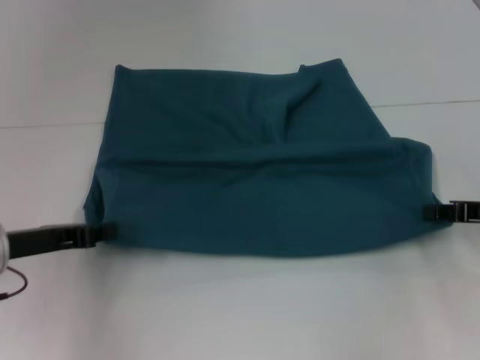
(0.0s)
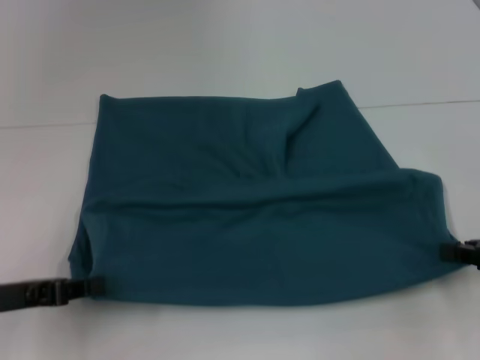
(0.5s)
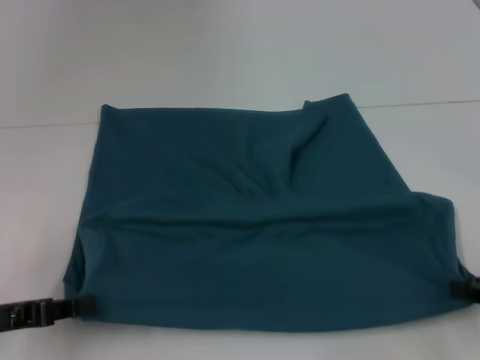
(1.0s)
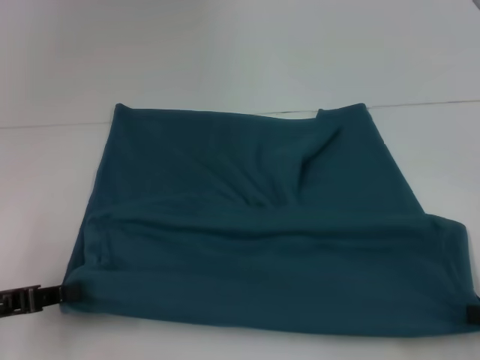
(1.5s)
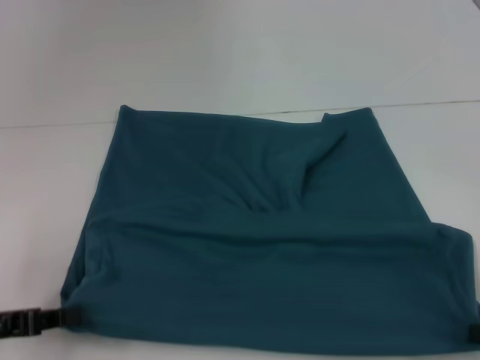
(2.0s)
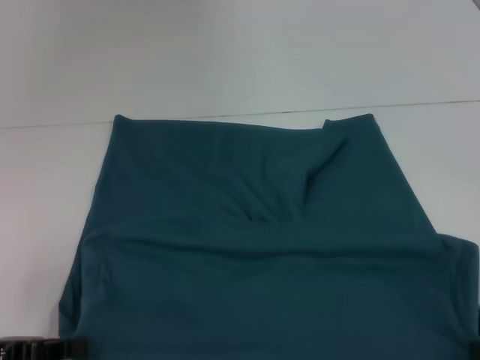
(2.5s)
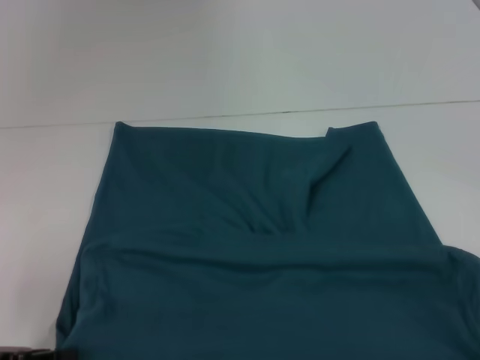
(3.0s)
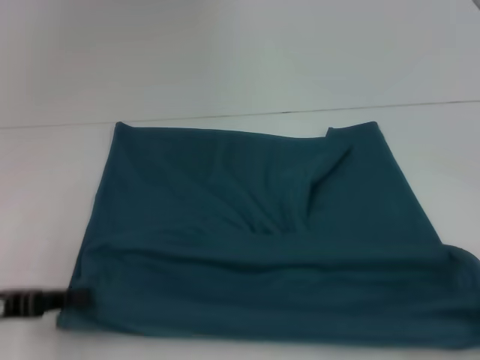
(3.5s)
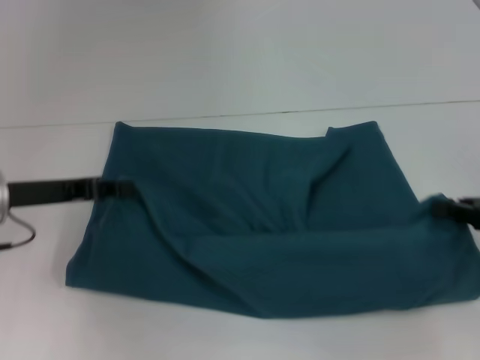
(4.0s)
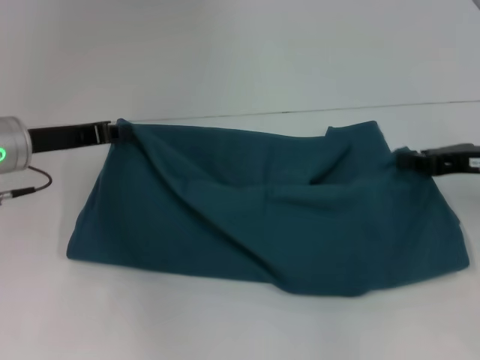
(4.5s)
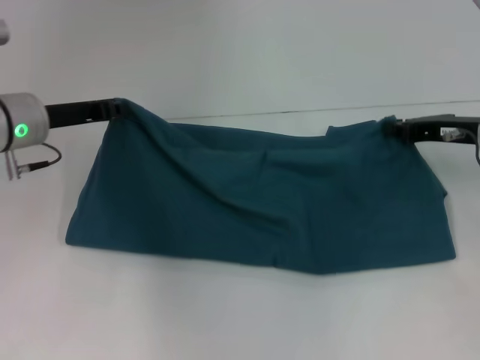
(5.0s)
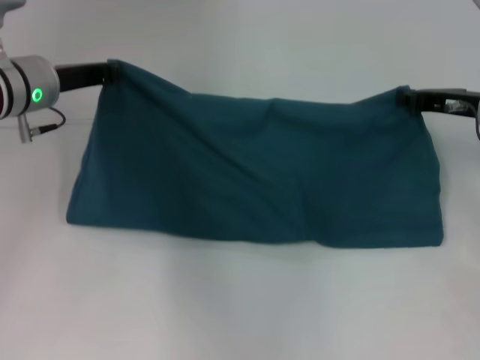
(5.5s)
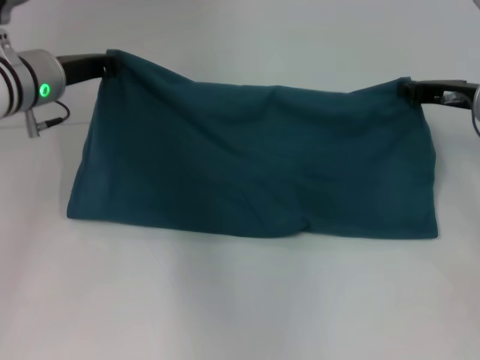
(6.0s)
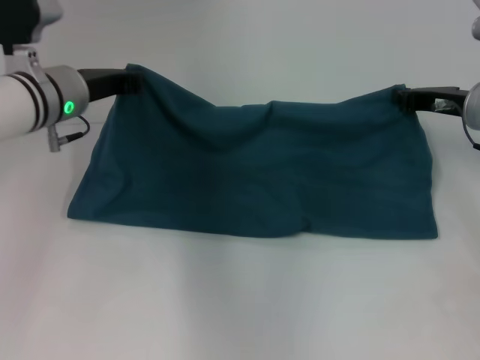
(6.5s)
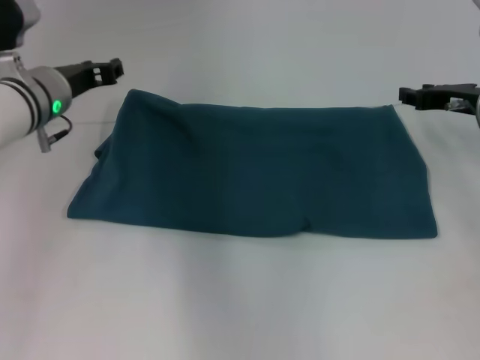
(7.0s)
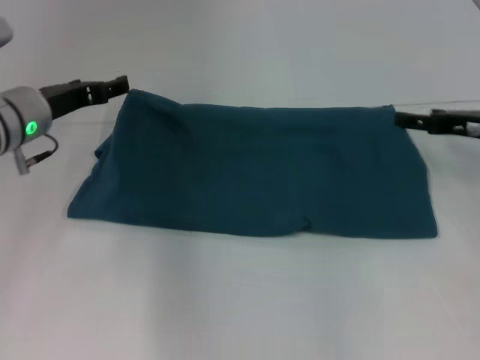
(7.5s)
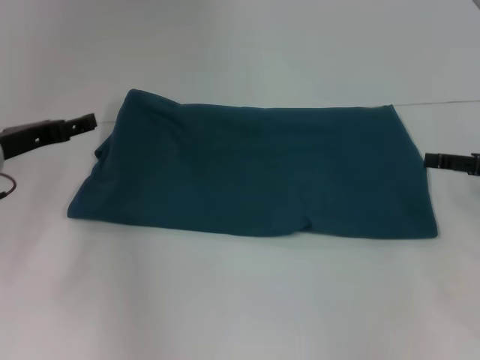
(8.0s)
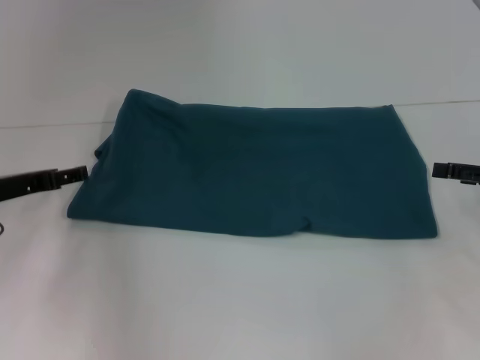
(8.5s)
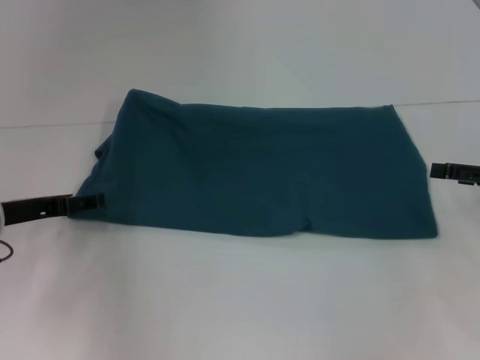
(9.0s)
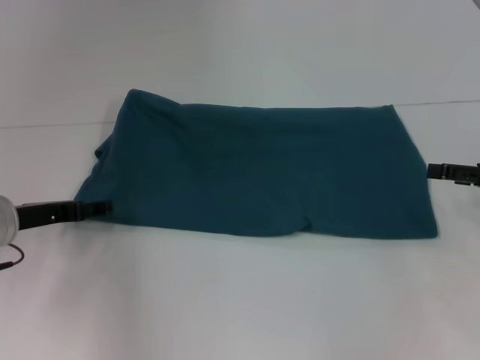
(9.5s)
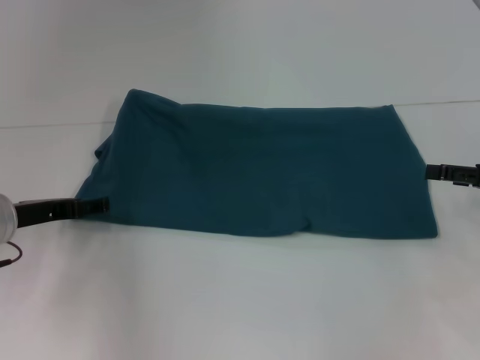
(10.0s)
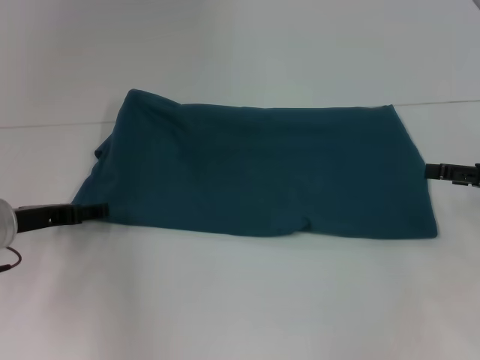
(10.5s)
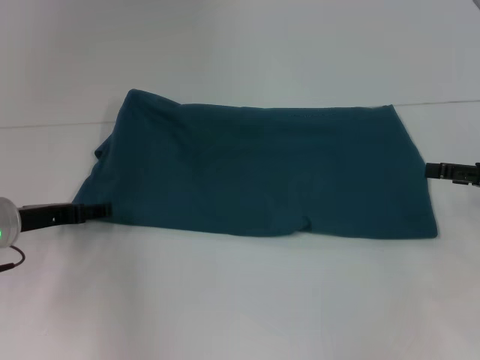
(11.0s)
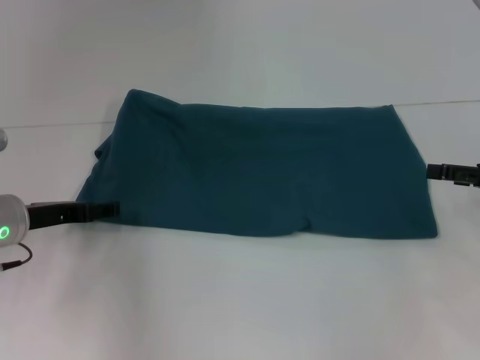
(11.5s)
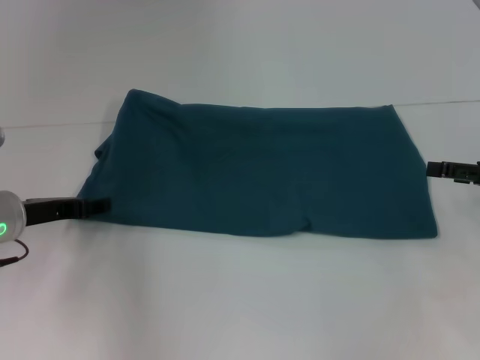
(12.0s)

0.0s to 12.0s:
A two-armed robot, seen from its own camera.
Step, 0.0s to 2.5s: Pull the clothes with your left hand.
Step, 0.0s to 2.5s: Pull the clothes with your right hand.
Step, 3.0s to 6.5s: Fold the clothes to the left.
Step, 3.0s to 6.5s: Fold the clothes to the right.
0.0s to 2.0s: The left gripper travels backward and to the left by about 10 cm; the right gripper heads backward, covering some 15 cm.
2.0s to 4.0s: The right gripper heads forward, covering roughly 10 cm; the left gripper goes some 10 cm forward and to the right.
4.0s to 6.0s: The left gripper travels forward and to the right by approximately 10 cm; the right gripper is displaced forward and to the left by some 15 cm.
6.0s to 8.0s: The left gripper moves to the left and backward, some 10 cm, and opens; the right gripper shifts approximately 10 cm backward and to the right, and opens its fingers.
8.0s to 10.0s: The left gripper shifts by approximately 5 cm.
10.0s to 12.0s: Both grippers stay put.

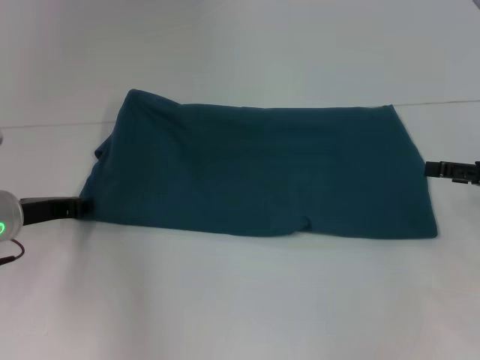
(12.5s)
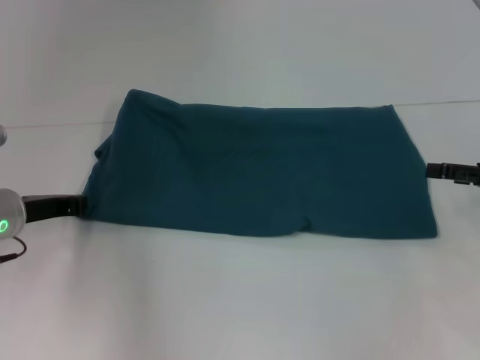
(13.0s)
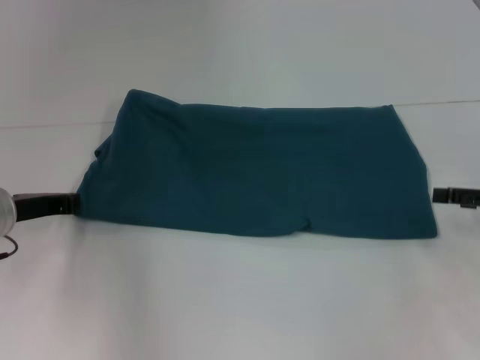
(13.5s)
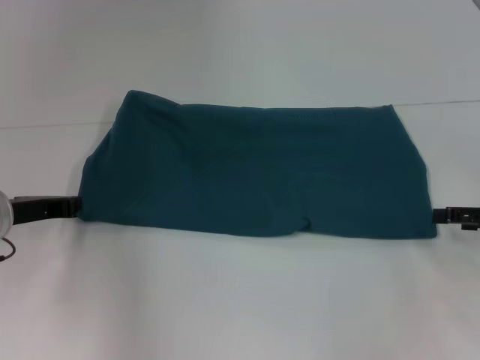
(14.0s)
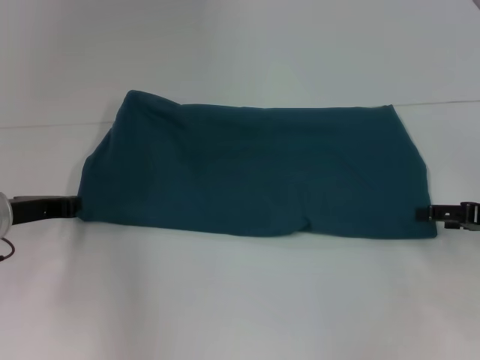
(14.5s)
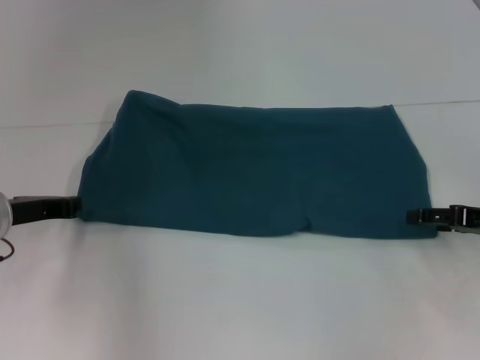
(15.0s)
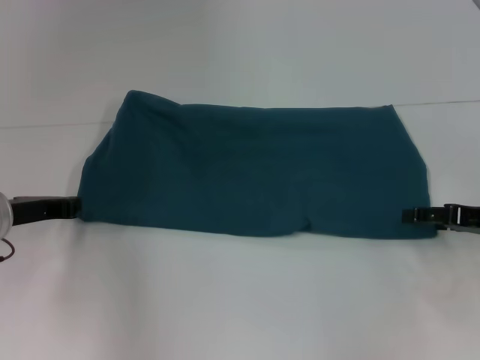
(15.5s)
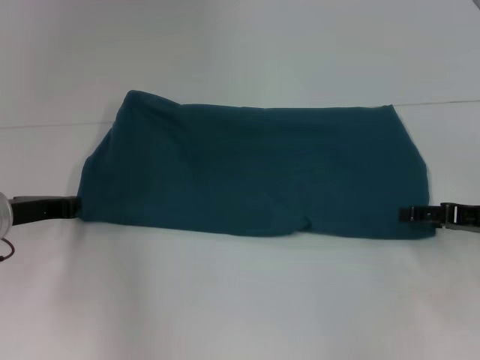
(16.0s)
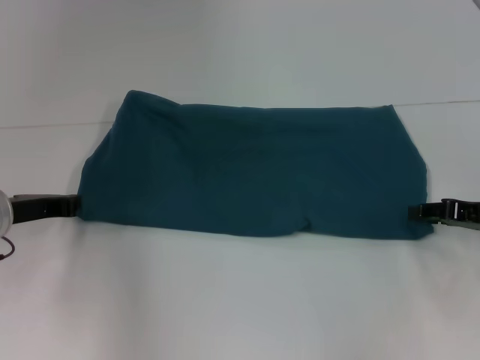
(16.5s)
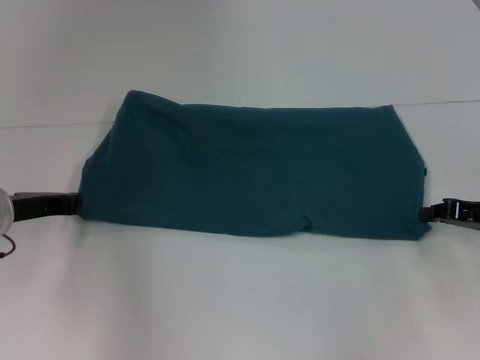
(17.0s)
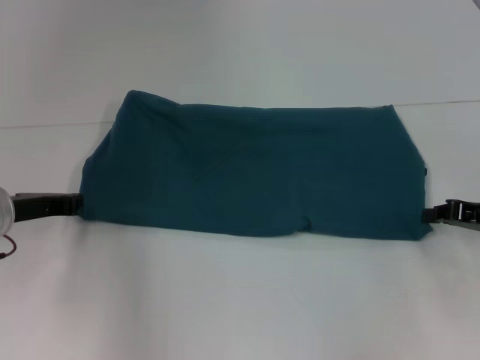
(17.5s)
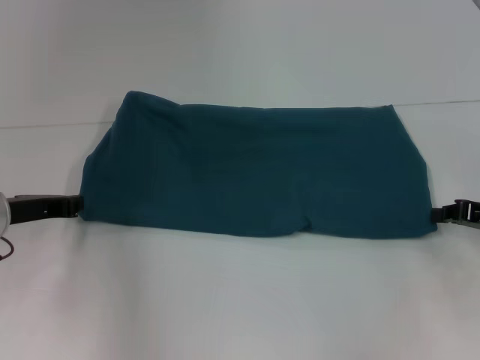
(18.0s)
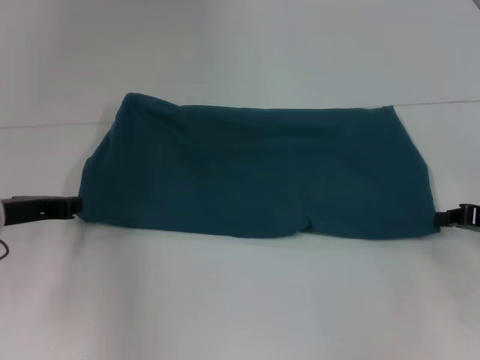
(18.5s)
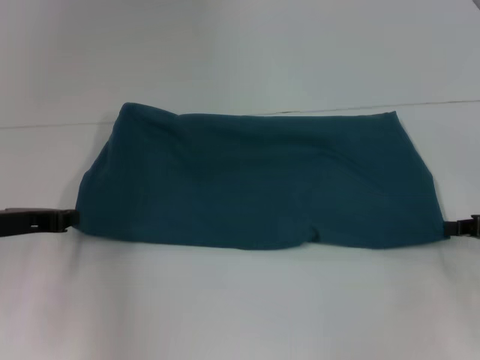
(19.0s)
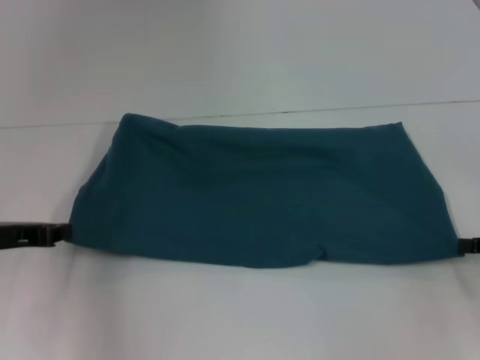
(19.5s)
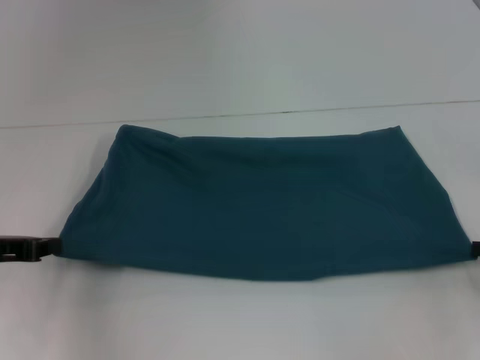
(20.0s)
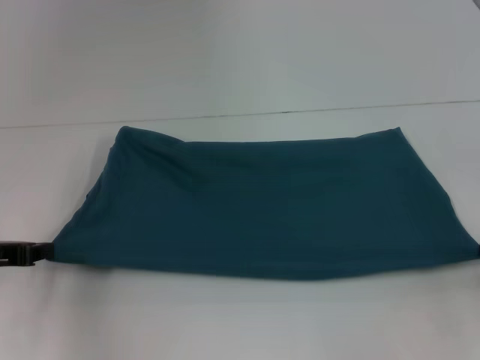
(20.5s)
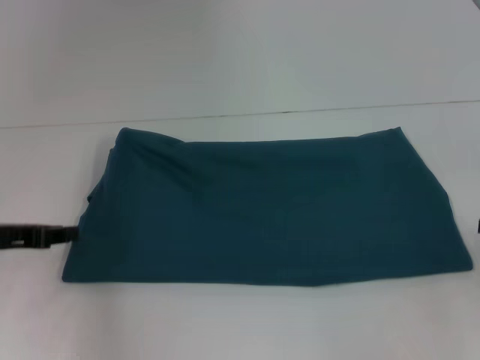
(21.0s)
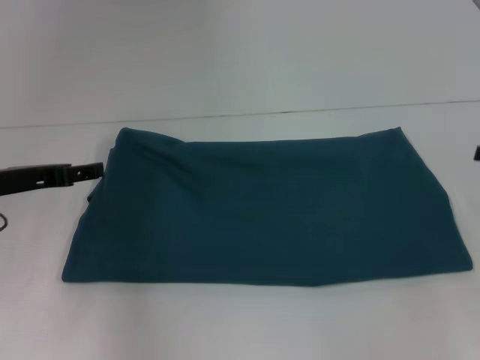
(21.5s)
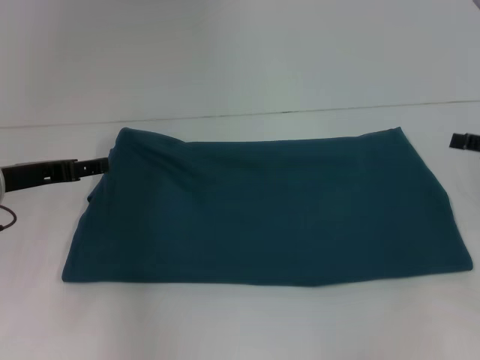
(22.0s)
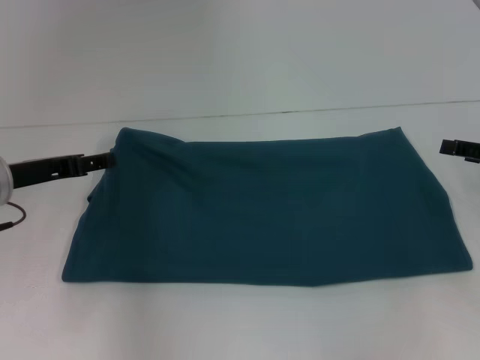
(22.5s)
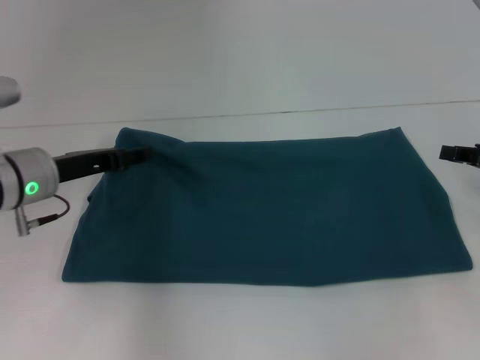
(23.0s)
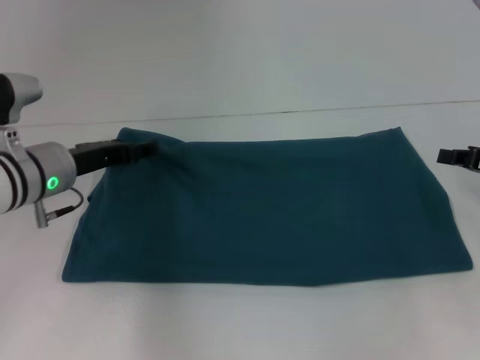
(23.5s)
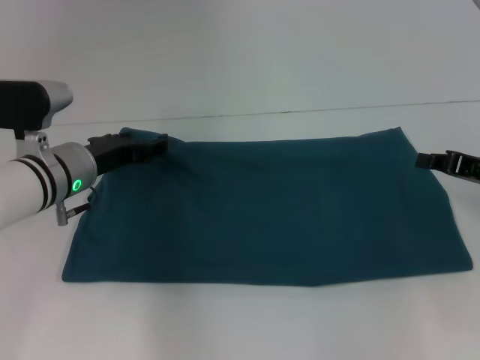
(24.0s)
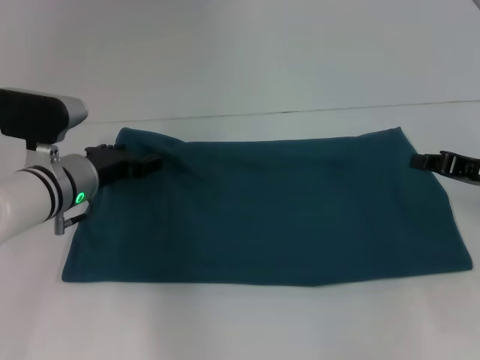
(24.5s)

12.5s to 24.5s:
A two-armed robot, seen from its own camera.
12.5s to 14.5s: The left gripper closes.
16.5s to 18.5s: The right gripper closes its fingers.
18.5s to 20.5s: The right gripper moves approximately 5 cm, while the left gripper shifts by approximately 5 cm.
20.5s to 22.5s: The right gripper is displaced forward by approximately 5 cm, and opens. The left gripper heads forward and to the right, covering approximately 10 cm, and opens up.
22.5s to 24.5s: The left gripper heads to the right, covering approximately 10 cm, while the right gripper closes.

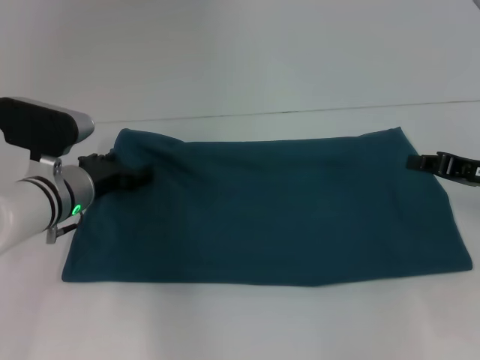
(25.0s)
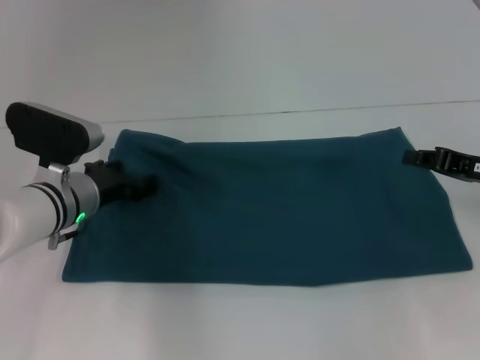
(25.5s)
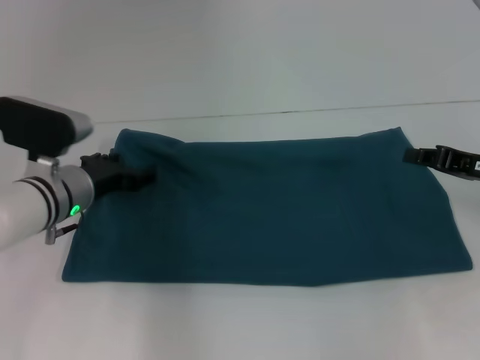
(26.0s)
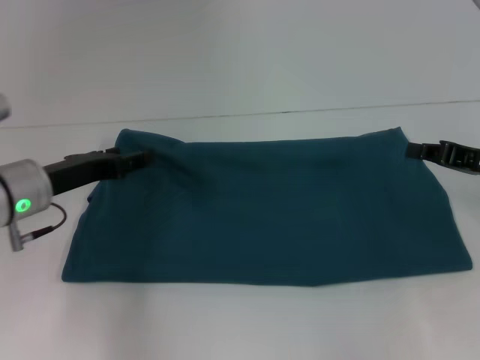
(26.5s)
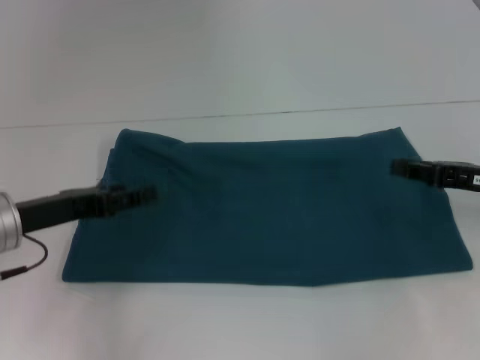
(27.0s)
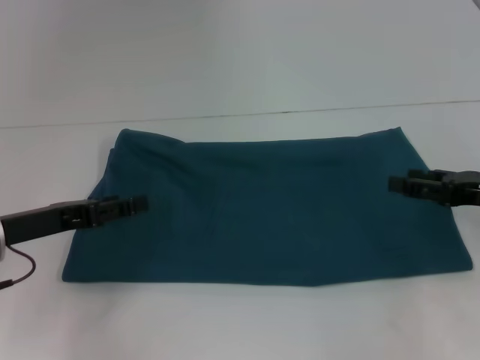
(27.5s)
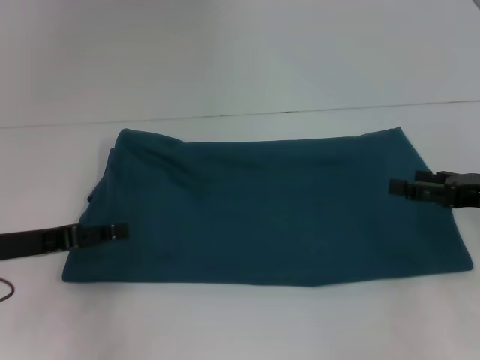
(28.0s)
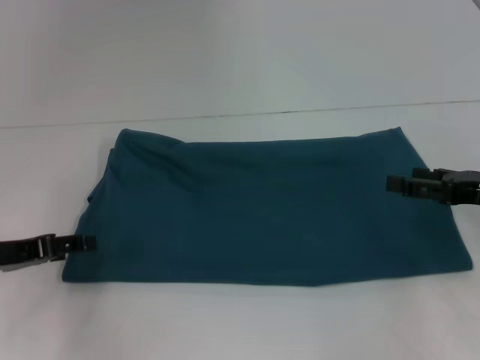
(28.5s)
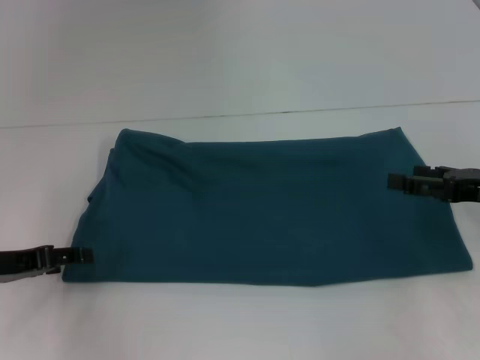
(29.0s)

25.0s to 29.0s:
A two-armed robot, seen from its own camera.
25.0s to 27.0s: The left gripper heads backward and to the left, covering some 10 cm.
27.0s to 29.0s: The left gripper heads to the left, covering about 5 cm. Meanwhile the right gripper opens.
